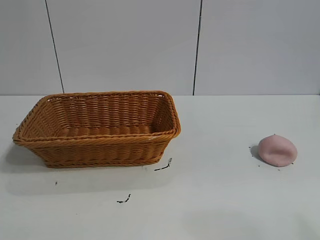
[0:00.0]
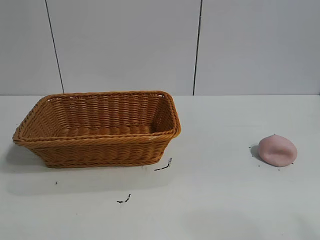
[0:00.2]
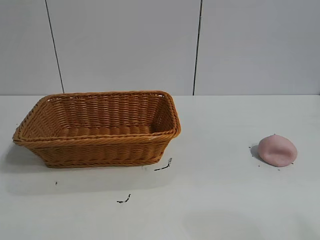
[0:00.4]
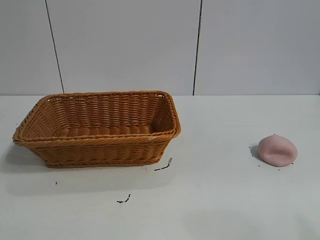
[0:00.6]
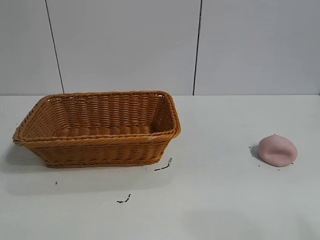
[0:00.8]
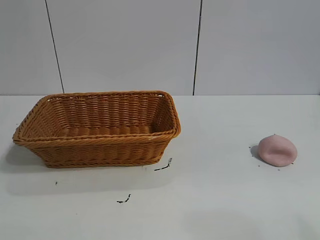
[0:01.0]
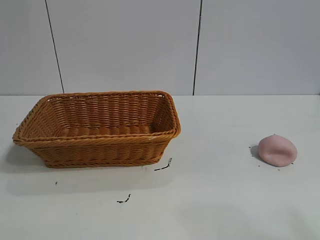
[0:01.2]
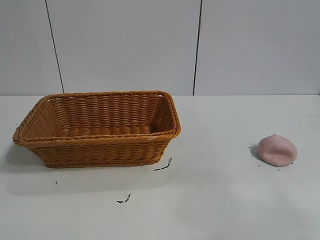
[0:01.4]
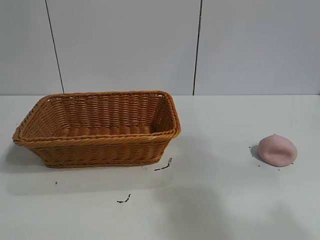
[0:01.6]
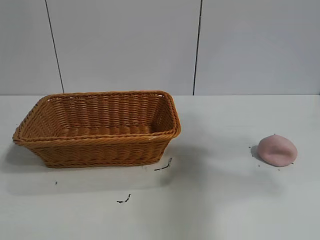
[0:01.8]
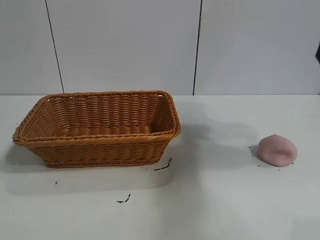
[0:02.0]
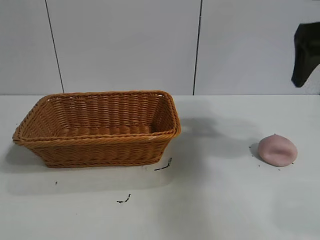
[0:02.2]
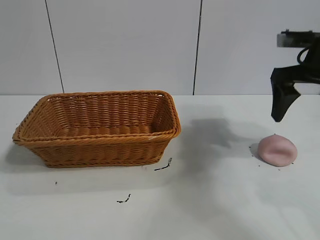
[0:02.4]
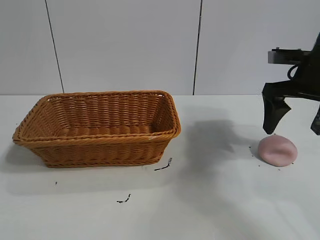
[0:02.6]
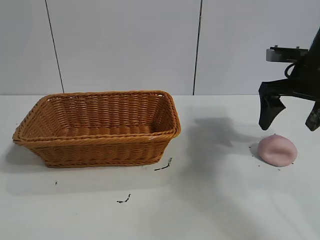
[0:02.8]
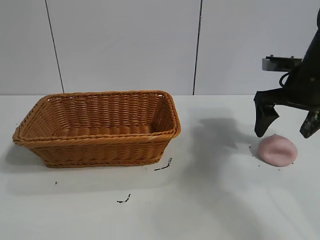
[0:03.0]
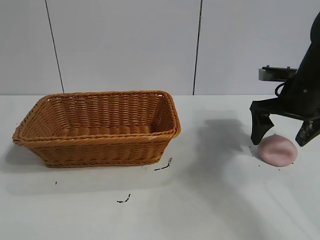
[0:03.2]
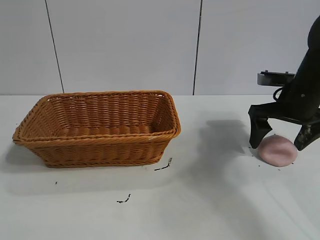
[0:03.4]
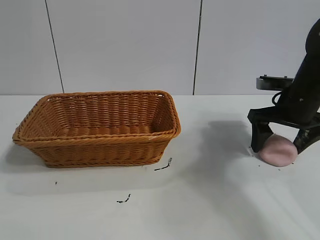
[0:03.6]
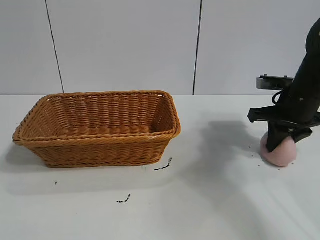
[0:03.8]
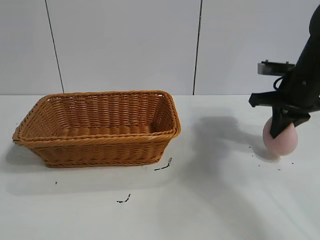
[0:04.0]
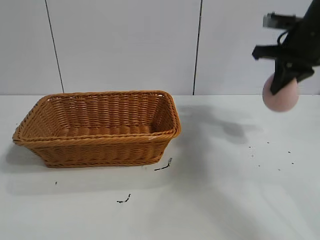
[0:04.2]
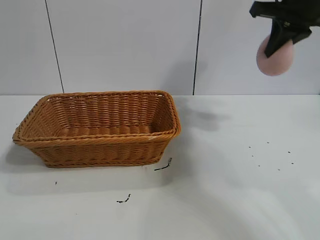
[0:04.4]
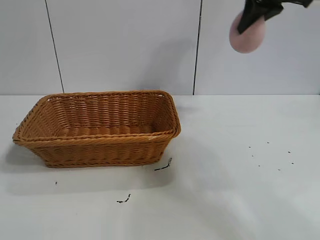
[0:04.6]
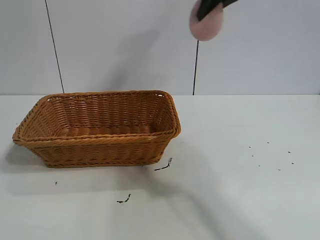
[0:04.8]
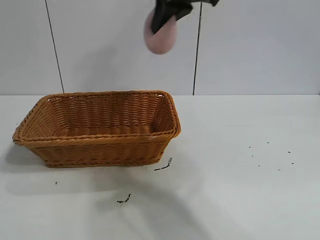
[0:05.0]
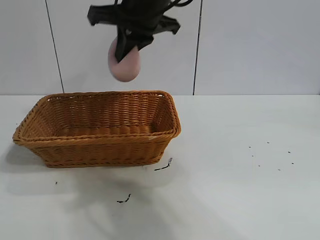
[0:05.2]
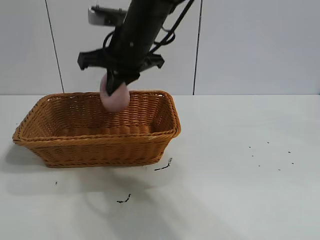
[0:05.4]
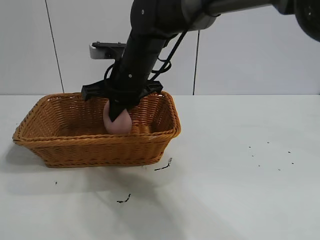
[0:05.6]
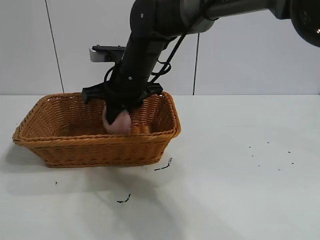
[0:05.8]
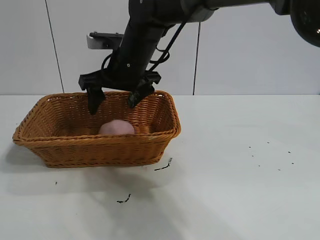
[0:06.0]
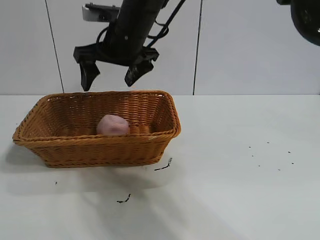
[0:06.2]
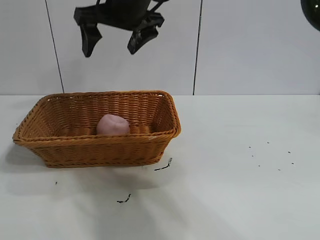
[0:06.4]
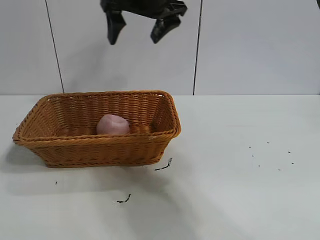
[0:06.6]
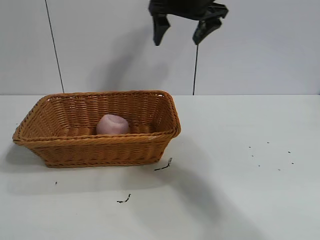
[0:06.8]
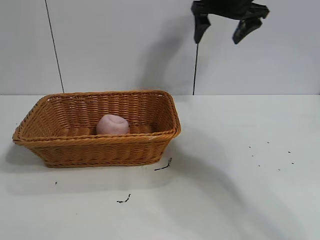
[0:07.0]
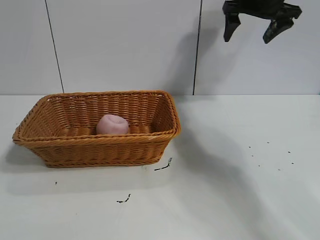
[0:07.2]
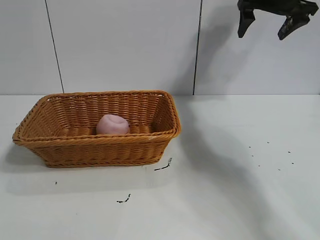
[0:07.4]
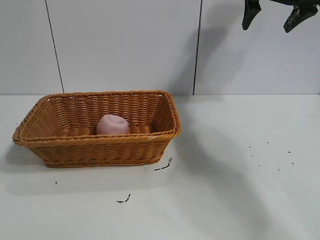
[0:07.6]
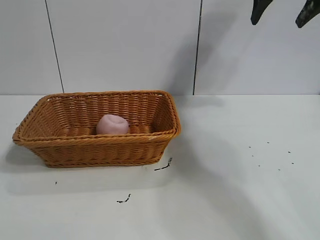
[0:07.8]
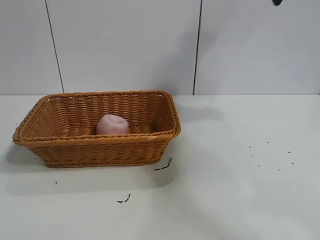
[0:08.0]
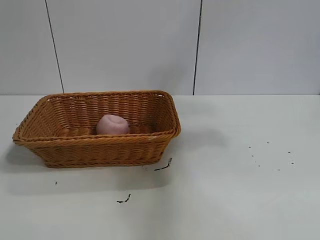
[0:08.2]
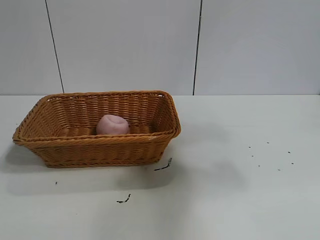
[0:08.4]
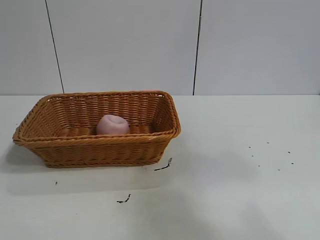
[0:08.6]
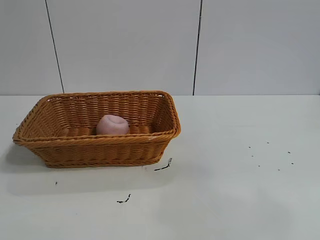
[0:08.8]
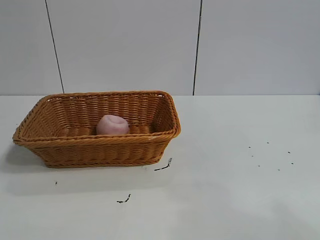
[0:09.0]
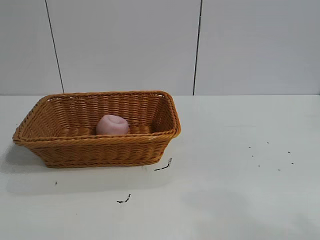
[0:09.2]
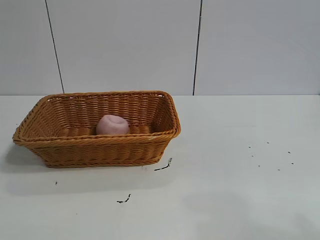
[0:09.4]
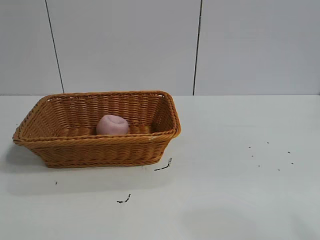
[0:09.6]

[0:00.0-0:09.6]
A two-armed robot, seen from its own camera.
Task of the whole recording: pick up the peach and put it into the basket.
Step, 0:01.2 to 0:03.8: Grasp the peach with right gripper.
Step, 0:04.0 to 0:06.0: Place the peach in the basket with right gripper.

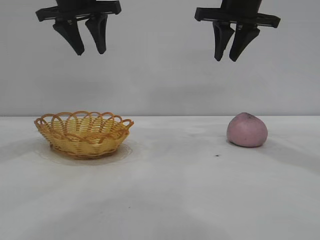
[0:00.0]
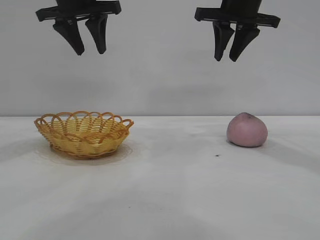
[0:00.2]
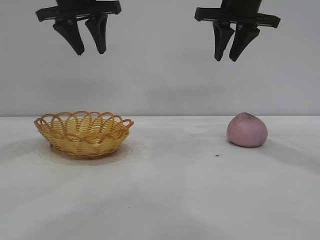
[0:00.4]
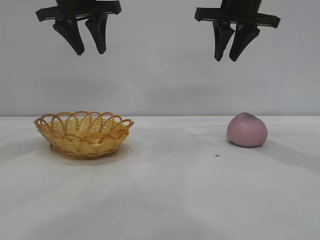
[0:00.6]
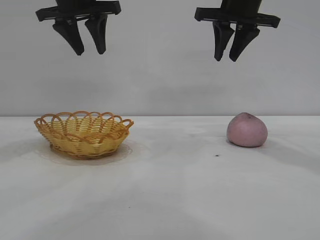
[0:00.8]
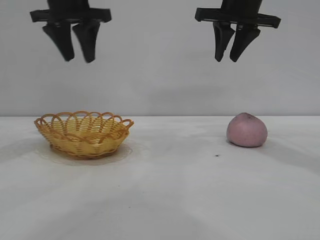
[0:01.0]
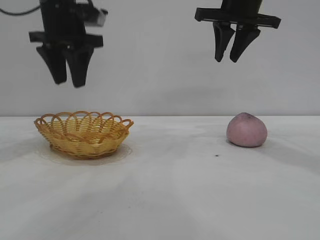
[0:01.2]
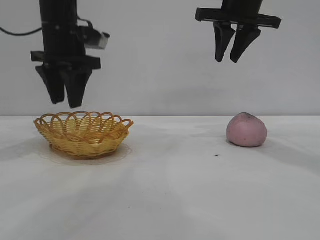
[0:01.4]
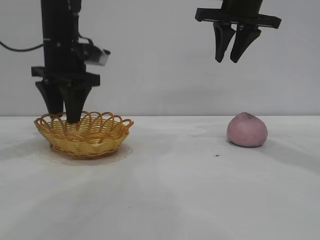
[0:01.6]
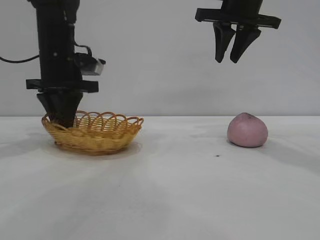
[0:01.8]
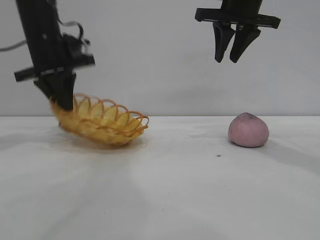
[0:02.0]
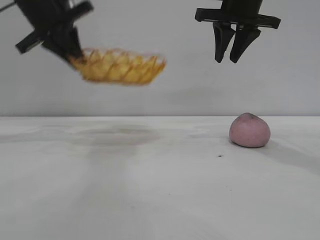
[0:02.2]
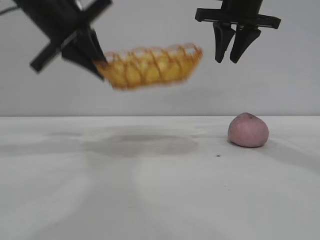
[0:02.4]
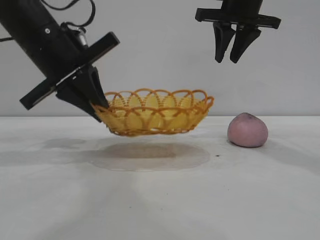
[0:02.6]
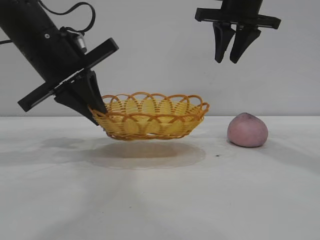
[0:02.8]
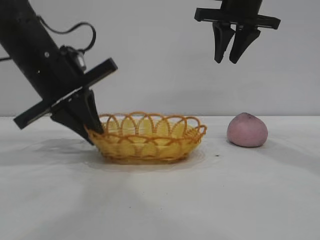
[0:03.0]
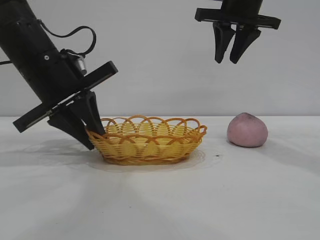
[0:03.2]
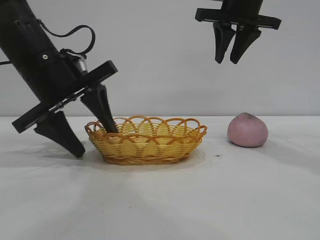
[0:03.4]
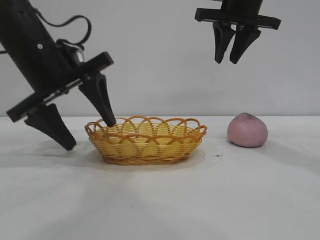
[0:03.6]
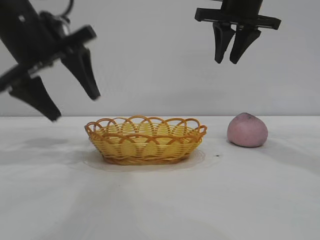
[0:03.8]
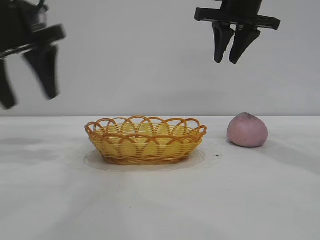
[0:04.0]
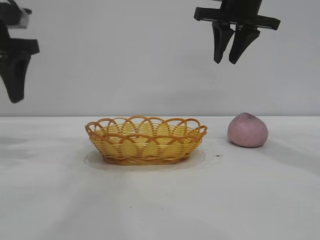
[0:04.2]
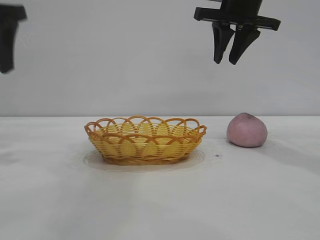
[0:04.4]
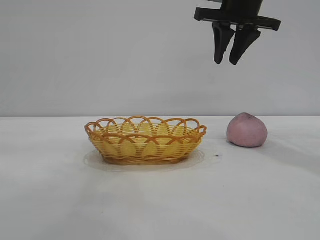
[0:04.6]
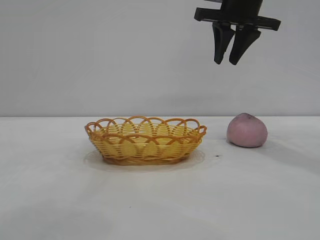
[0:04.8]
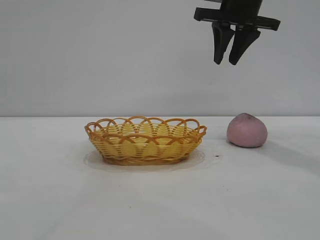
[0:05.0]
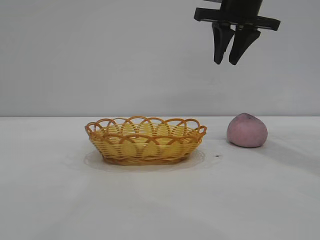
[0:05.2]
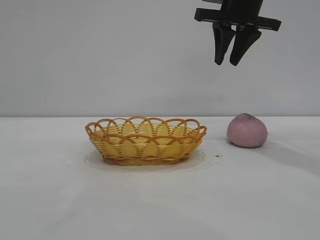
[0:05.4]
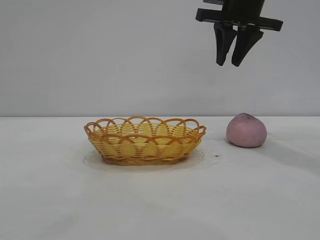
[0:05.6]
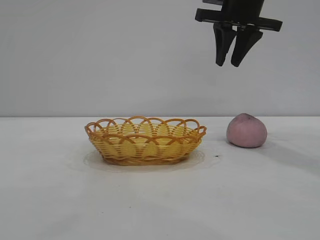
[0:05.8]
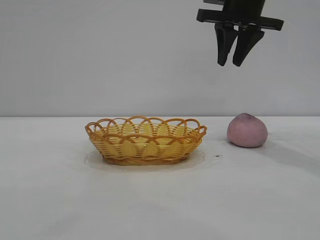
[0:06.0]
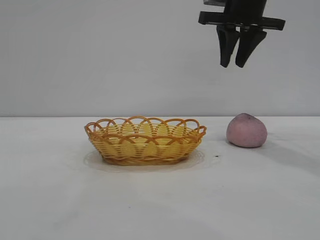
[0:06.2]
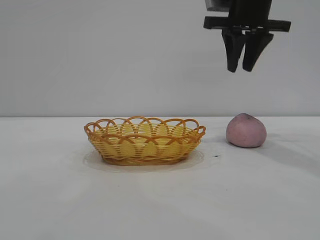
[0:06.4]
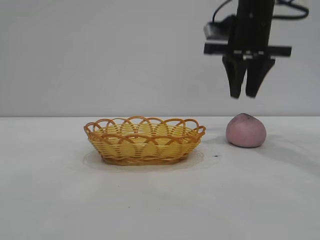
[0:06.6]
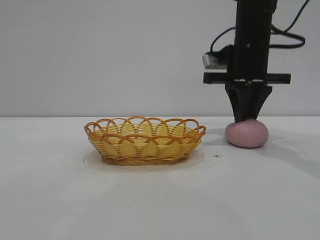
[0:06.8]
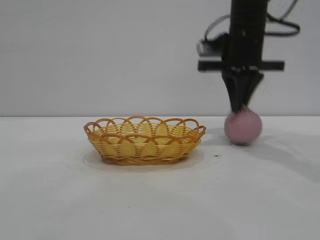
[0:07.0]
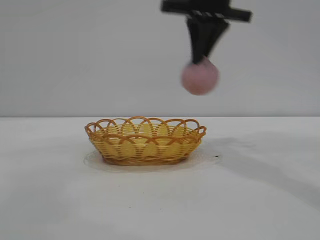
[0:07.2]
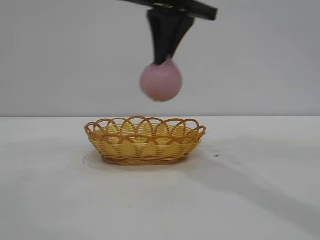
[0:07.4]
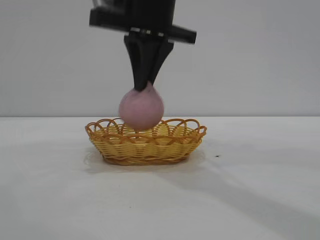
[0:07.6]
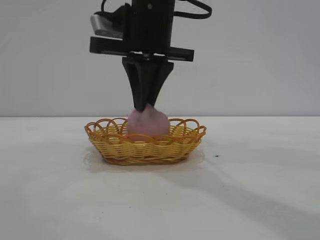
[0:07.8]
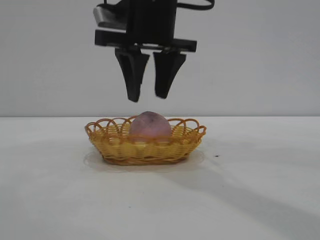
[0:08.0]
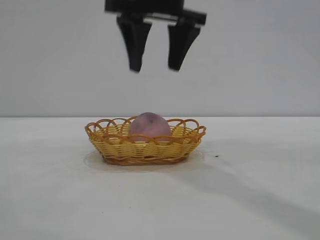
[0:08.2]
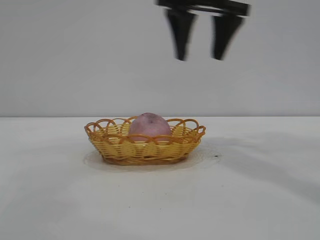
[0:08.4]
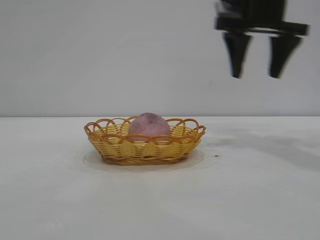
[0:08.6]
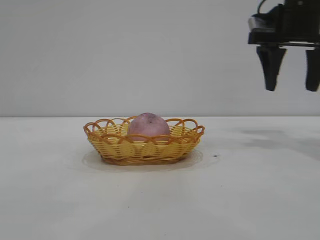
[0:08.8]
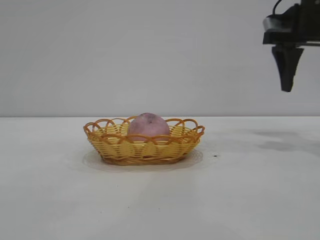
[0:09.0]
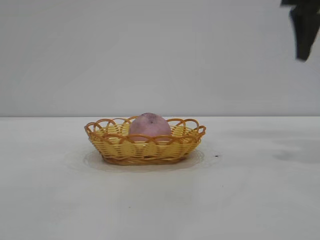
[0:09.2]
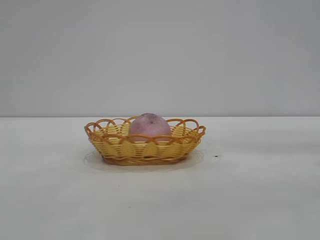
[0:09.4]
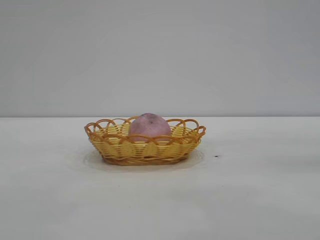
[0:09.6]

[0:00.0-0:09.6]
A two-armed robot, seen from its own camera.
Task of the whole recording: pick up the peach and put it into the basket.
Step, 0:00.0 to 0:03.8: Move the basket to the center of view.
Step, 0:04.0 to 0:07.0: Pick up the peach.
Step, 0:07.2 to 0:08.4: place the peach into the basket.

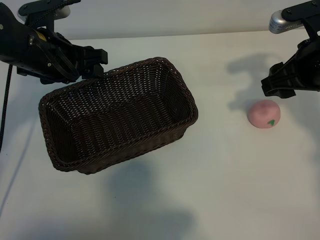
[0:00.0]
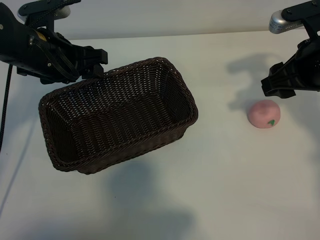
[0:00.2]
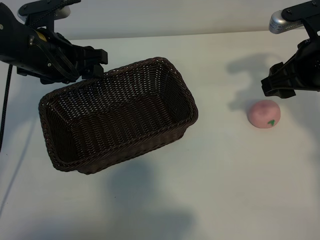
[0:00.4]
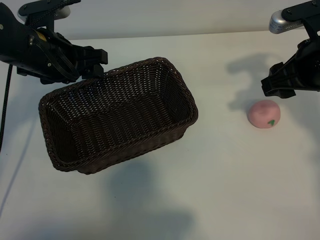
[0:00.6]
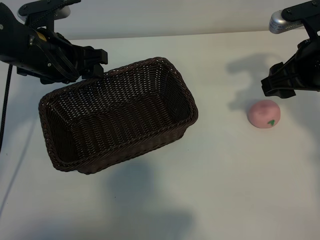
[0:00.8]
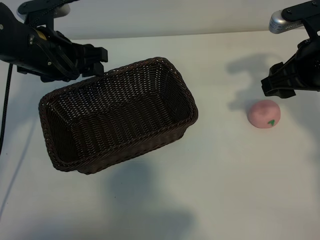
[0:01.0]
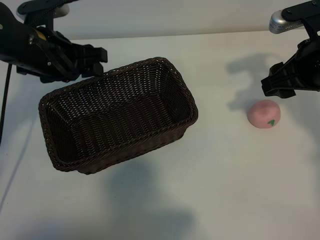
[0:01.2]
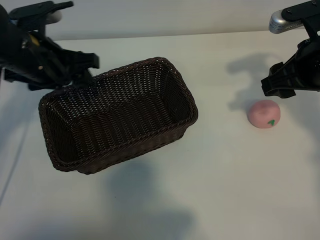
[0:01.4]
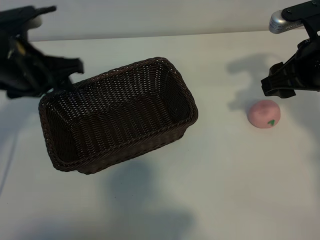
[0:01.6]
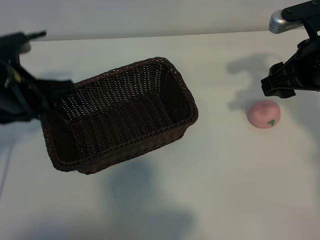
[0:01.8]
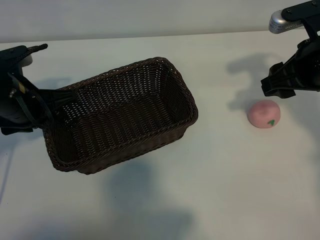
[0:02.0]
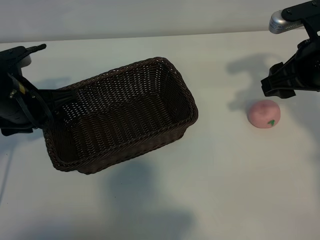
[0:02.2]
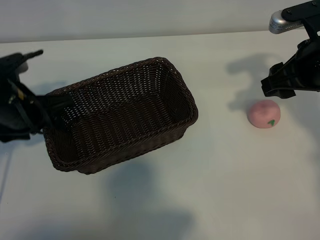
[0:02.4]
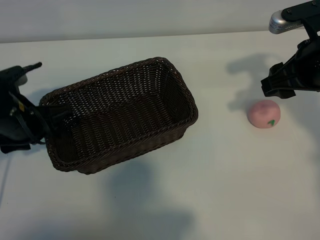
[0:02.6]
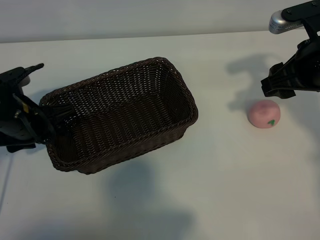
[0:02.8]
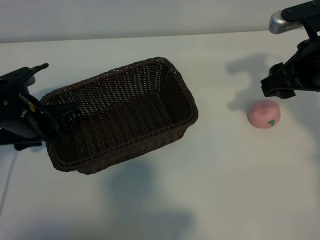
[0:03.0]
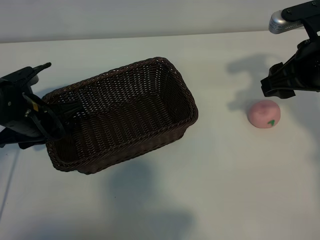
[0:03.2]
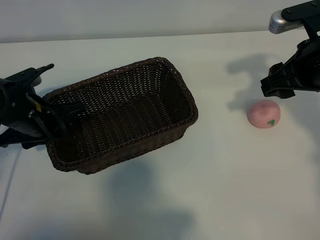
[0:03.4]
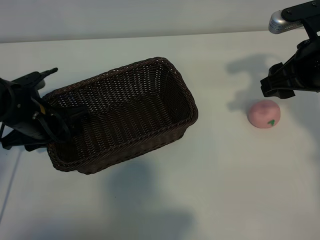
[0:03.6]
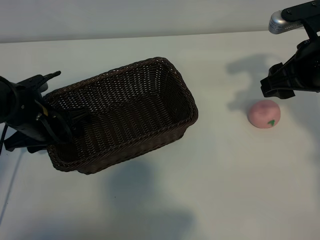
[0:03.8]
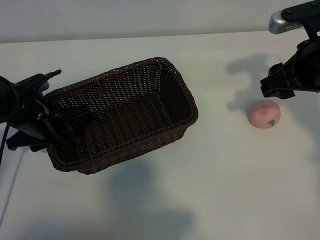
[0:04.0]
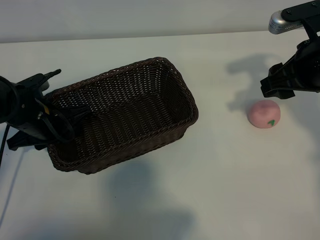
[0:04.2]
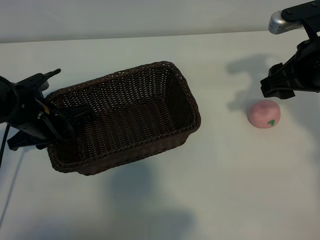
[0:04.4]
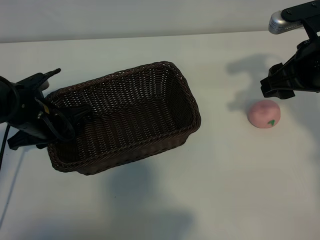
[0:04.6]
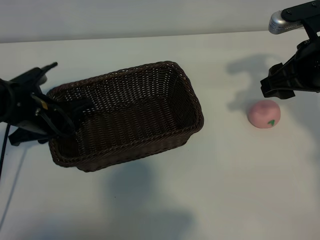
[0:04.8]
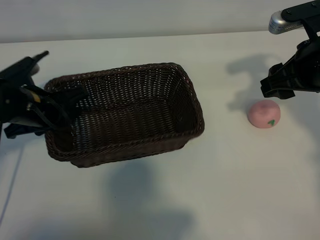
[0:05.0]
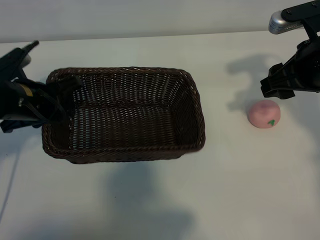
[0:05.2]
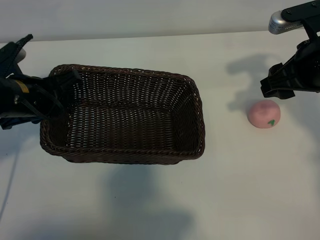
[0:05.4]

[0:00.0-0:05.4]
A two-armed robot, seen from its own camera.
Task of the whole recording: pick up the peach and put it into the basket.
Step, 0:01.0 to 0:04.4: Grasp the basket with left gripper.
